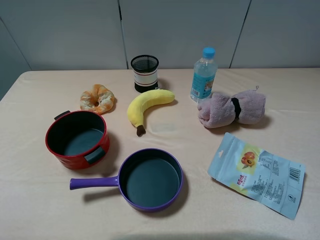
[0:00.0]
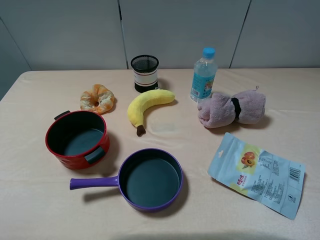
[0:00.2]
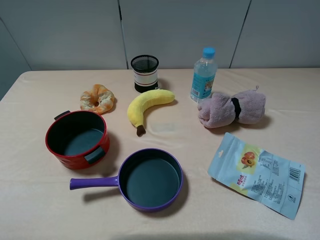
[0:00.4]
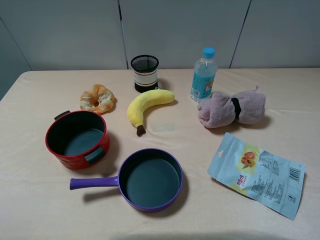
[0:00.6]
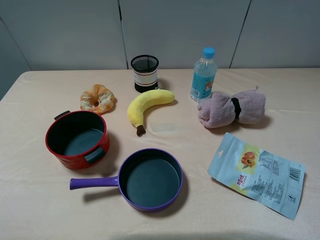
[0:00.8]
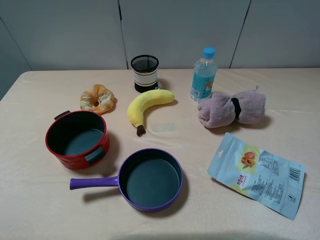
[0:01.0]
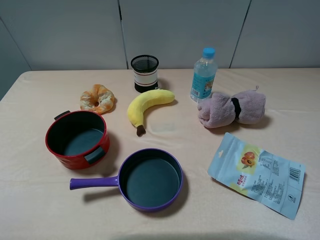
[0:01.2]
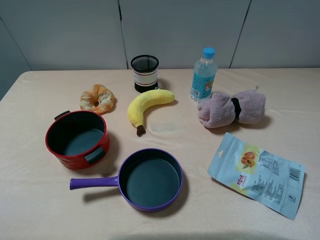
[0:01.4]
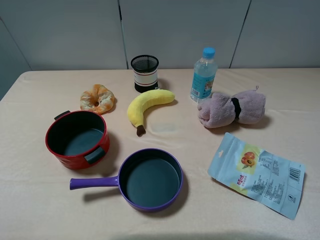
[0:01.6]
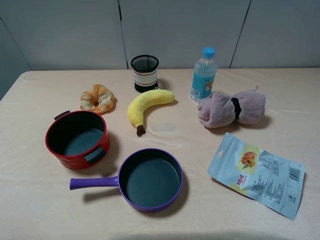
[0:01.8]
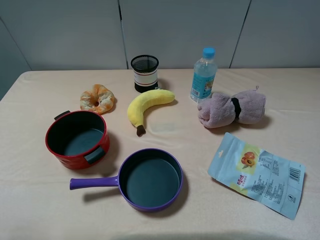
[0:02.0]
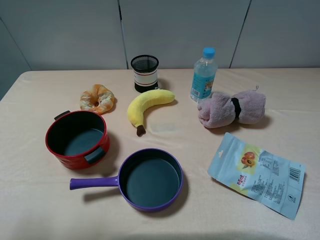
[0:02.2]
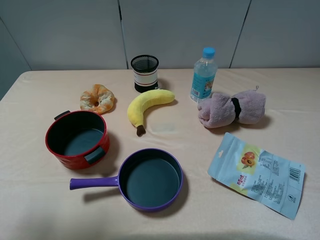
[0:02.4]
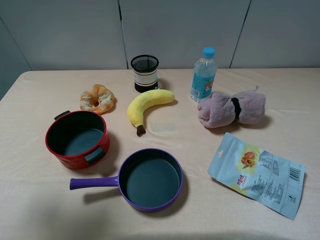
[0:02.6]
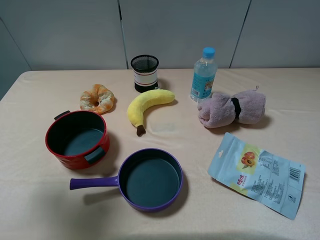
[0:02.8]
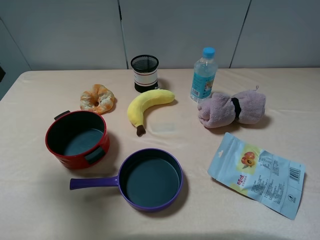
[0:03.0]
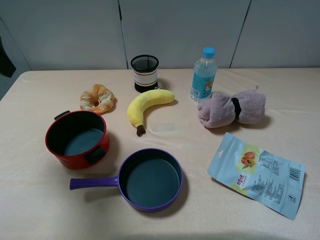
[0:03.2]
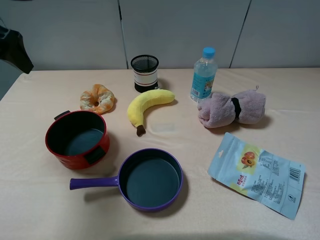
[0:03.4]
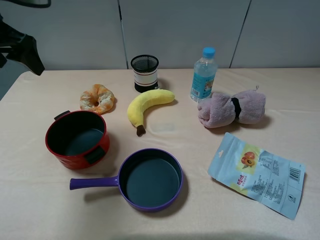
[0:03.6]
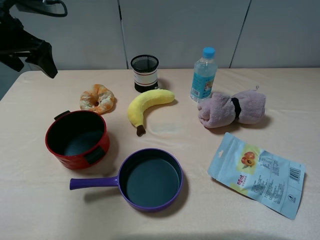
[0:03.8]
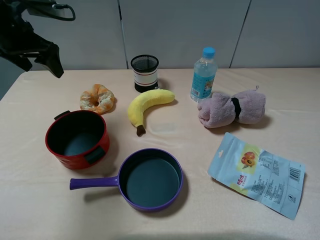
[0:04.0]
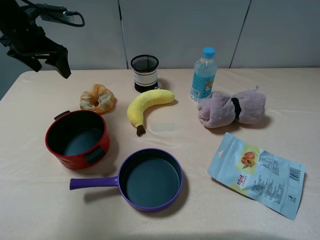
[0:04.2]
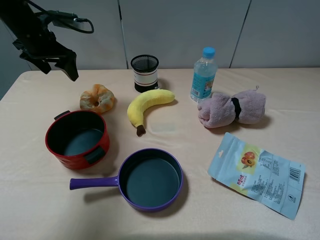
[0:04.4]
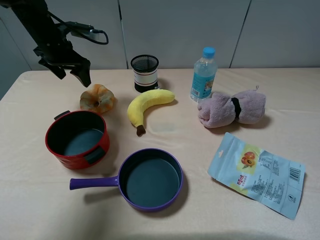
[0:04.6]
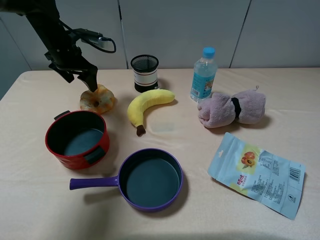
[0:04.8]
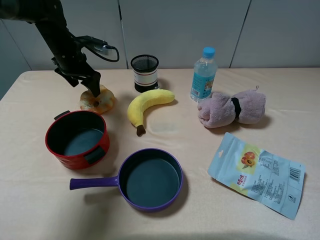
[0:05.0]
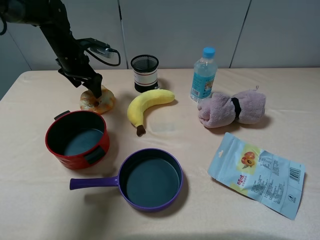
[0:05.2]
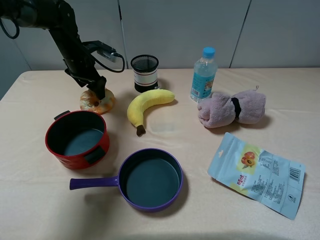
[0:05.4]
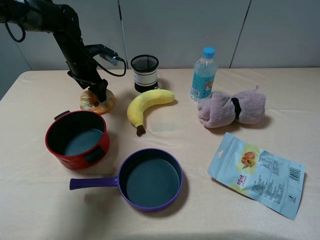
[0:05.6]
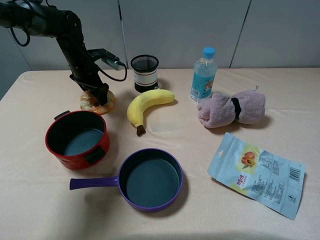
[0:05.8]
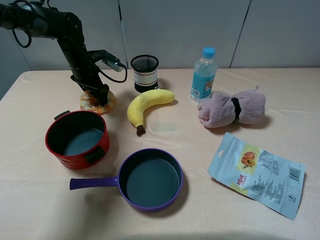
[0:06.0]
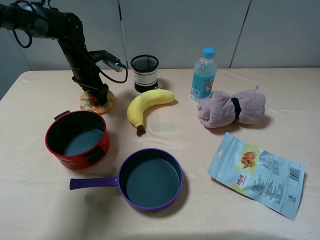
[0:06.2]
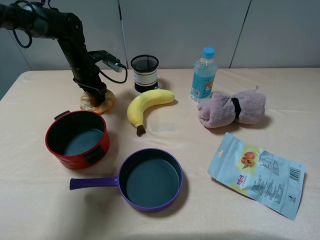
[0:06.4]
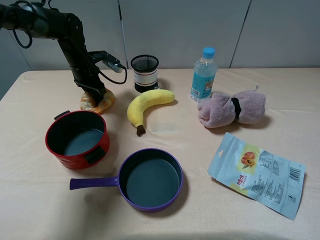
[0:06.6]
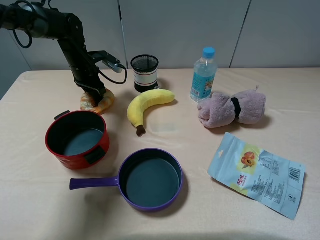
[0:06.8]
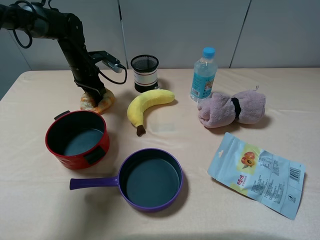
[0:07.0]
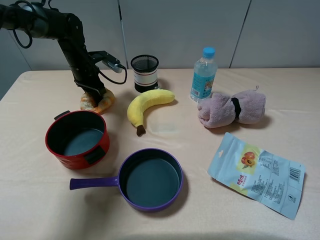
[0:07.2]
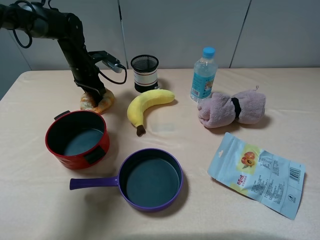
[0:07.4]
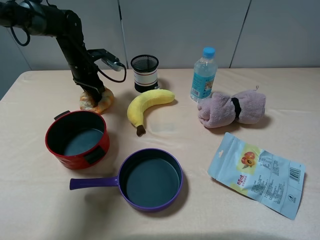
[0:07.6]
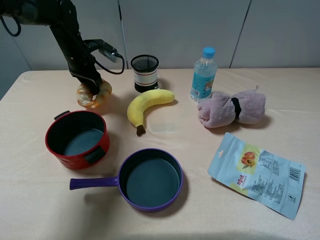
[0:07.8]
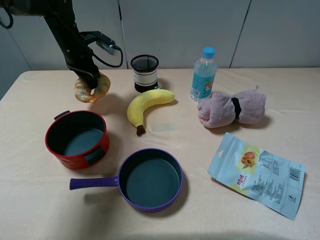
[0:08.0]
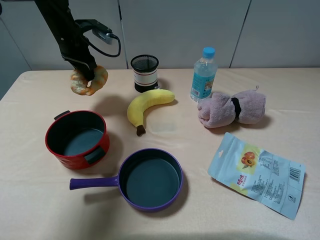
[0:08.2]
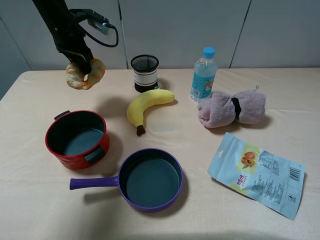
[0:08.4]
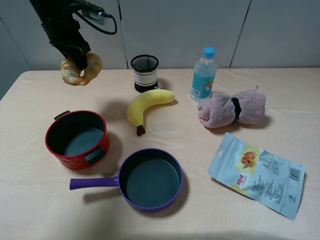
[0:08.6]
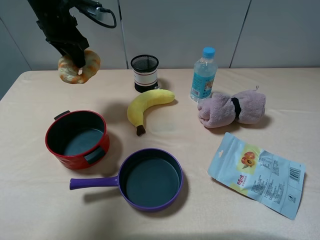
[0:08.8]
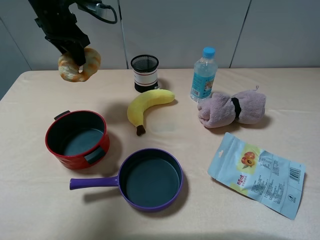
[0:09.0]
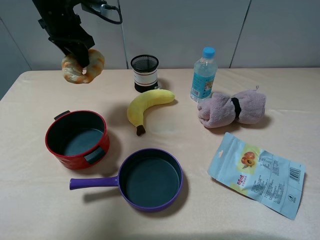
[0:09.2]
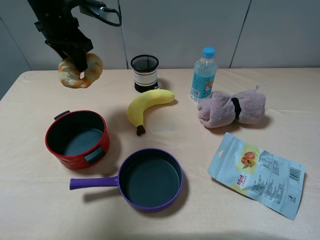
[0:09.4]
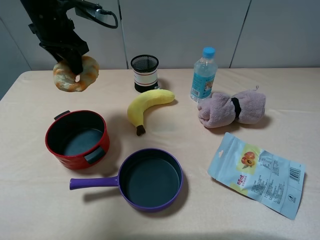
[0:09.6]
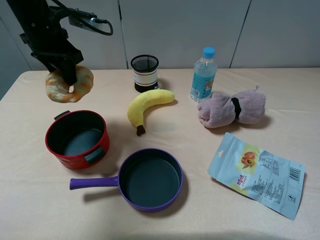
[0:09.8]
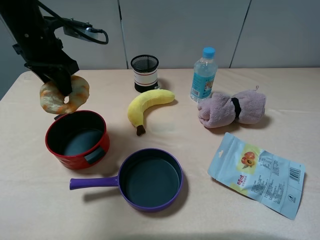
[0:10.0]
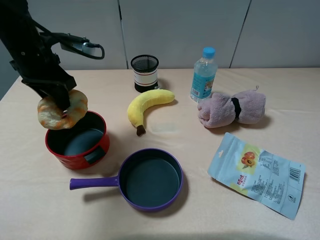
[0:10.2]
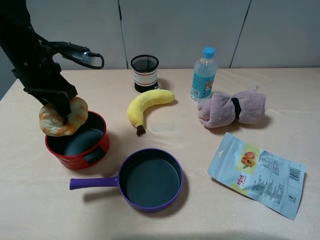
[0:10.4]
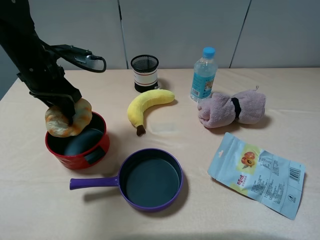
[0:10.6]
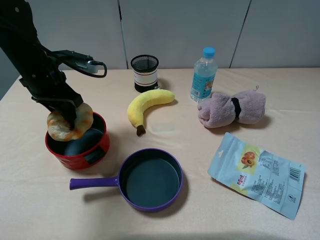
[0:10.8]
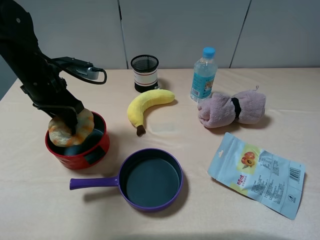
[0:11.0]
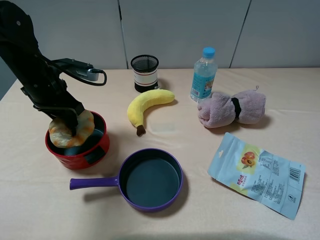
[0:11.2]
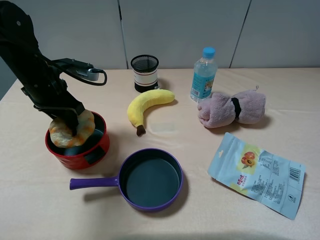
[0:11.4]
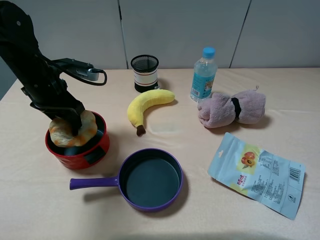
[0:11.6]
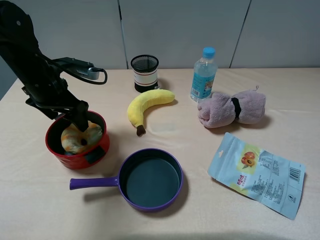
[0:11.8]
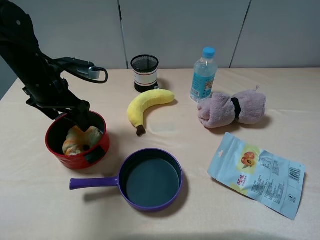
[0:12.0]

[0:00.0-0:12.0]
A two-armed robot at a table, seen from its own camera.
Task of the whole recording: pick up an item with a gripper and place it in a random container on the table.
Step, 0.0 to 6.8 s: Grasp the hollow ring bread with the left gripper.
1.6 to 3.0 s: The left gripper is displaced forward by roughly 20 cm.
3.0 to 4.4 s: The left gripper is displaced forward and downward by about 25 cm.
4.4 to 6.0 s: The left gripper is displaced downward, to the right and forward by some 15 cm.
6.0 to 7.6 s: The left gripper closes.
7.6 to 9.0 s: The left gripper travels upward by about 15 cm.
9.0 to 10.4 s: The left gripper heads backward, covering about 10 cm.
10.4 to 12.0 s: The left gripper opens.

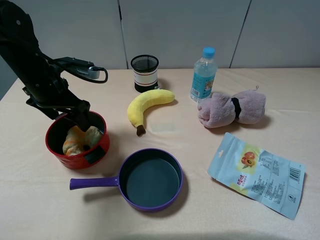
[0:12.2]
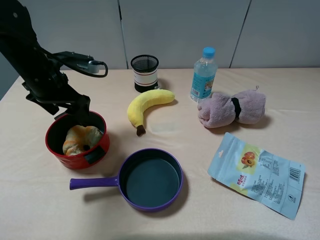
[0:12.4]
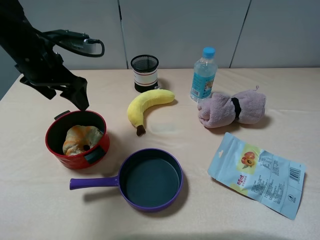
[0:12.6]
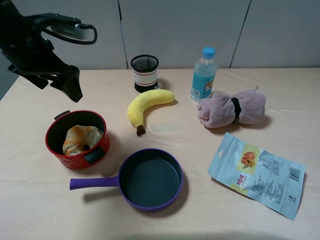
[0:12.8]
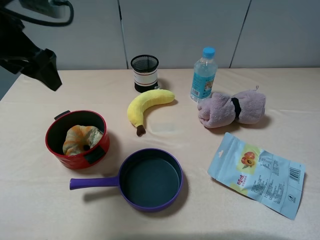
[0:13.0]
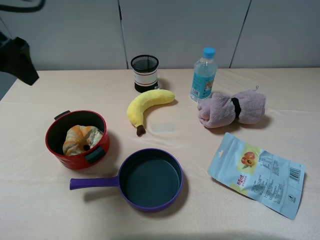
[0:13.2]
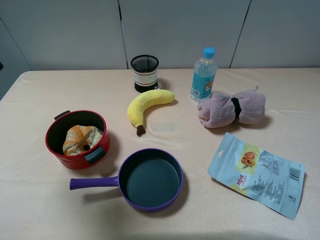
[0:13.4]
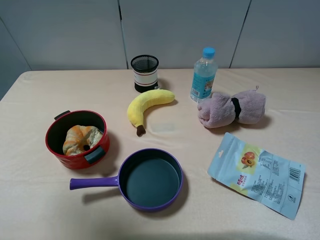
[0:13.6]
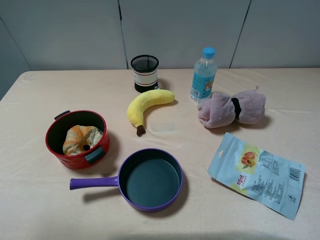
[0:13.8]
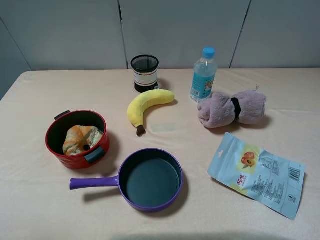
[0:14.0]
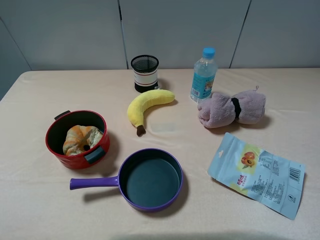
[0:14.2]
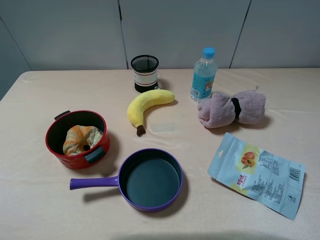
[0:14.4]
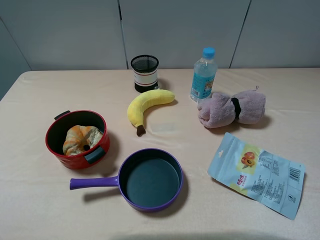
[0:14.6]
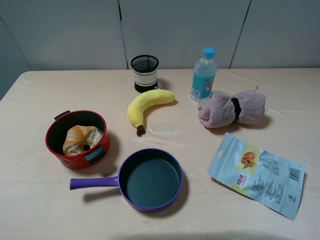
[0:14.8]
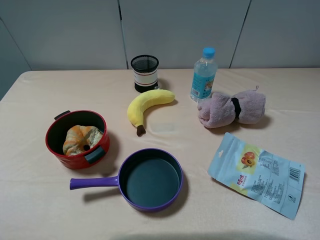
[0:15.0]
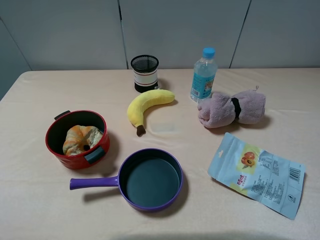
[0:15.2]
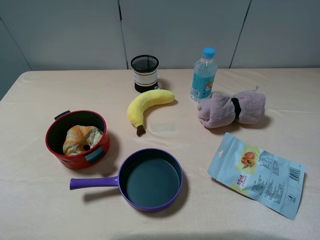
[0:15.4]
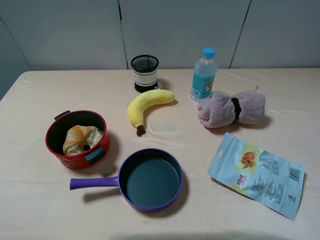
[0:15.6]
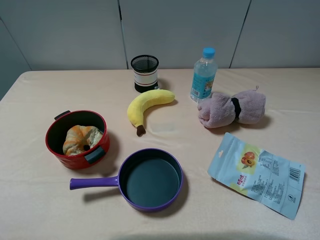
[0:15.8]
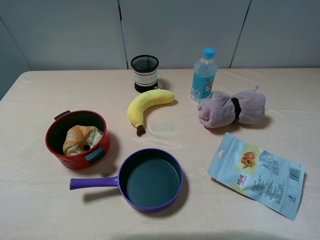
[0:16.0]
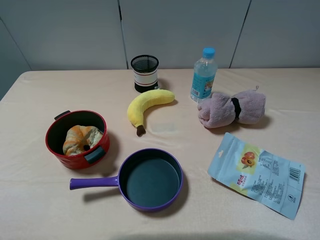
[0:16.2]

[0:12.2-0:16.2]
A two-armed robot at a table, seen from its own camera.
Task of the whole recording: pick up an item with a gripper and place it in a random container on the table.
12.2 to 13.6 s: The left gripper shifts about 25 cm upward and backward.
13.6 to 14.8 s: The left gripper travels backward and downward by about 20 cm.

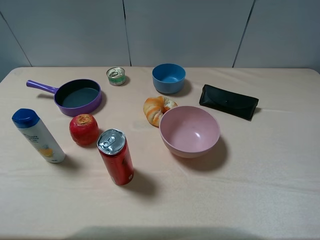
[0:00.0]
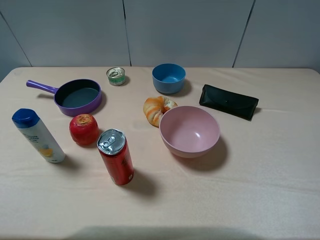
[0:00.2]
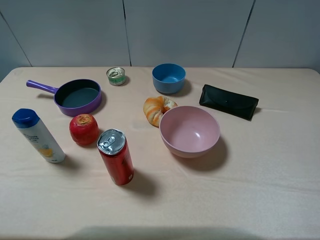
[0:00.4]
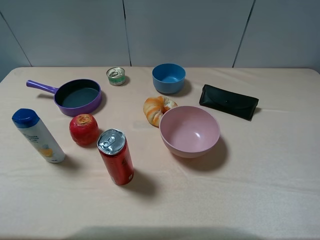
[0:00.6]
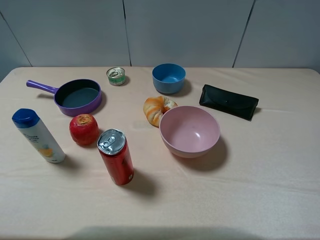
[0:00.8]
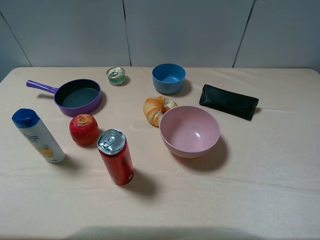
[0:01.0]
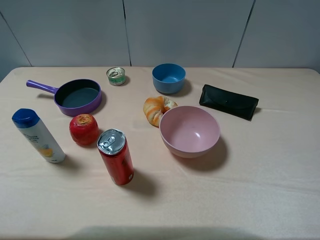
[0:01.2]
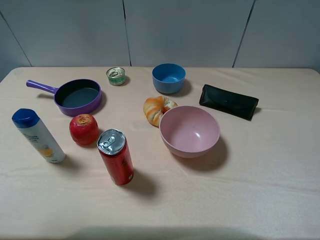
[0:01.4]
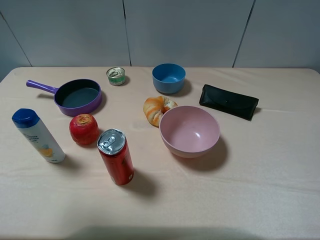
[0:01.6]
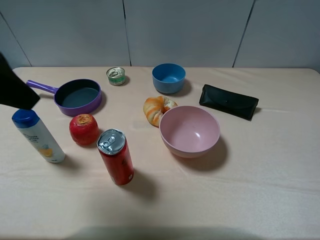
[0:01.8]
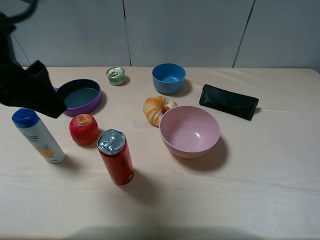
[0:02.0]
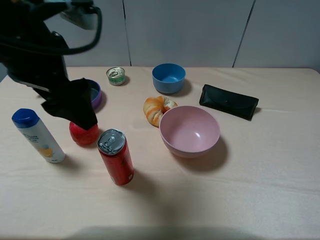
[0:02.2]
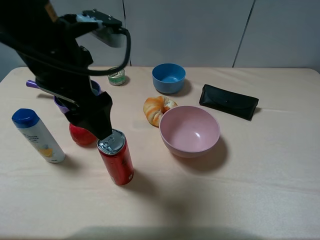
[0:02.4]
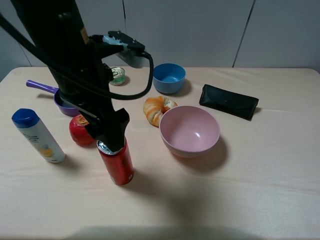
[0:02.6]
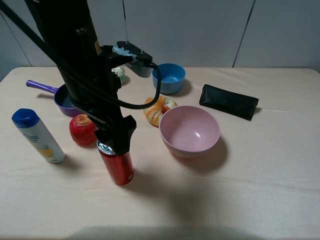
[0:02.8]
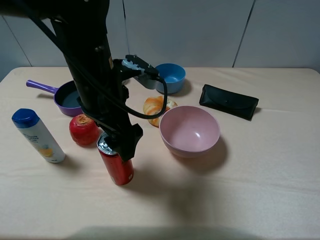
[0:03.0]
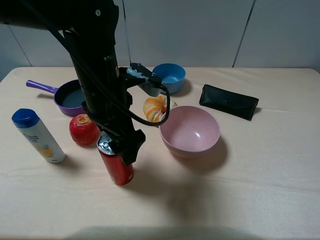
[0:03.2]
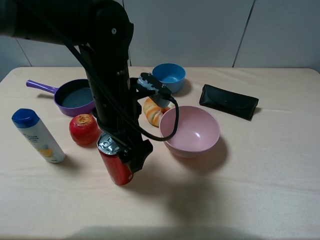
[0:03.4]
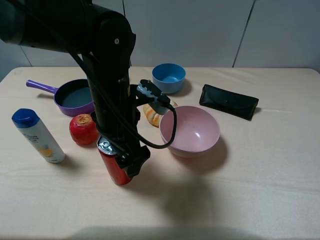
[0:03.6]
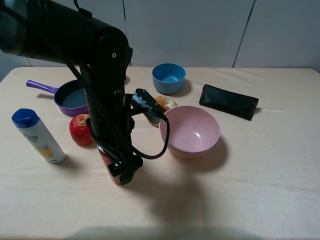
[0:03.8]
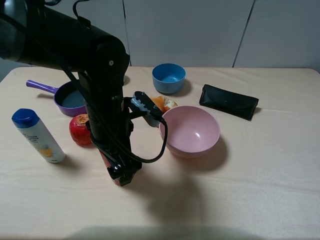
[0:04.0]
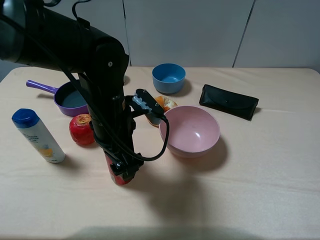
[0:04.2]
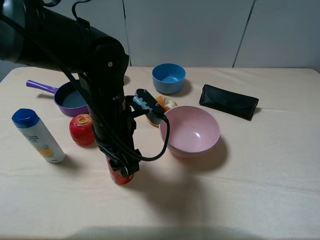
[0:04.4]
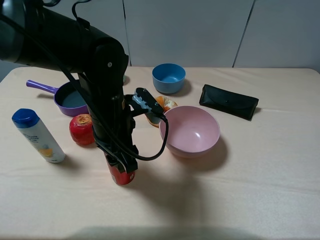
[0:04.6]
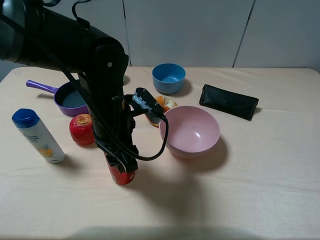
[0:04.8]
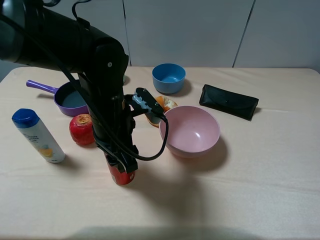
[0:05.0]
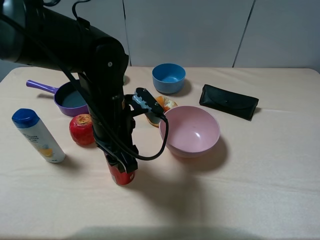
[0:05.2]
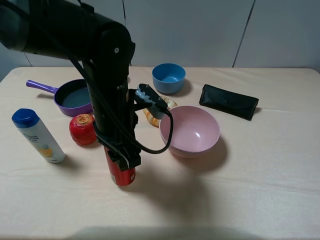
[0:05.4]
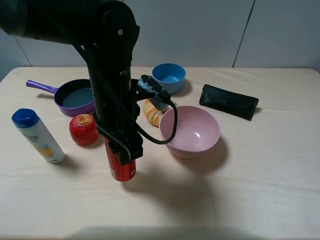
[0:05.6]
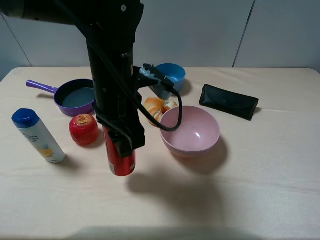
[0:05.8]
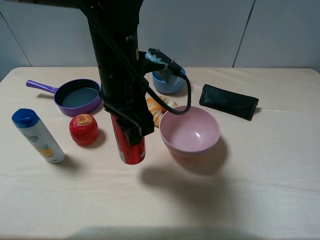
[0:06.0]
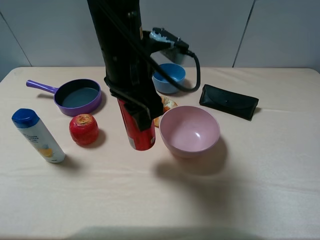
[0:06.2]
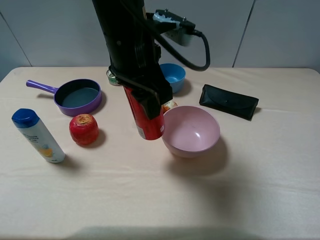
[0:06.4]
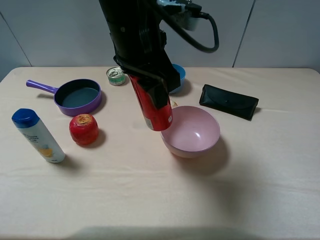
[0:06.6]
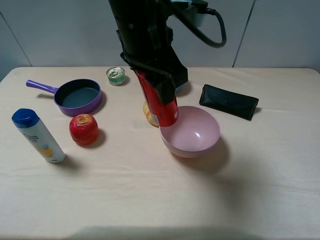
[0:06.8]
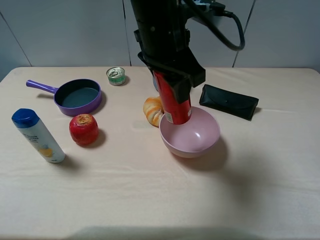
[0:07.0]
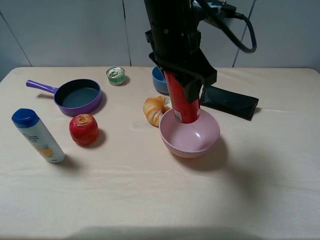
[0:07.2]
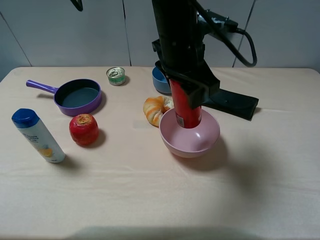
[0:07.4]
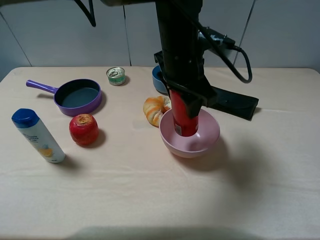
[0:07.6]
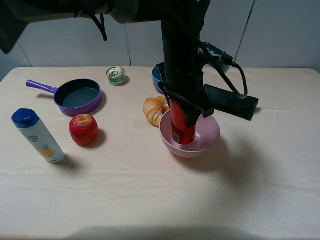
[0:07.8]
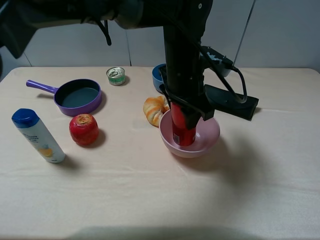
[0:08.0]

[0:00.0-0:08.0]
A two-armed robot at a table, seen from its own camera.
Task of the whole recording: pick up an item with a gripper and place it in a random container on the table.
Step, 0.0 to 4.6 s: Grasp the coke with the left gripper.
0.0 to 1.6 s: The left gripper is displaced forward and upward by roughly 15 cm.
1.6 to 3.2 s: The left gripper goes about 25 cm to the right, downward and forward.
3.2 to 4.8 s: The left gripper closes.
4.8 to 6.4 s: The left gripper goes some 10 cm upward.
6.4 to 8.0 s: The left gripper goes some 10 cm downward and to the right.
